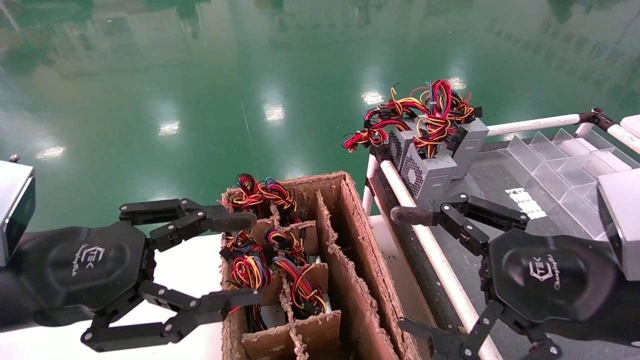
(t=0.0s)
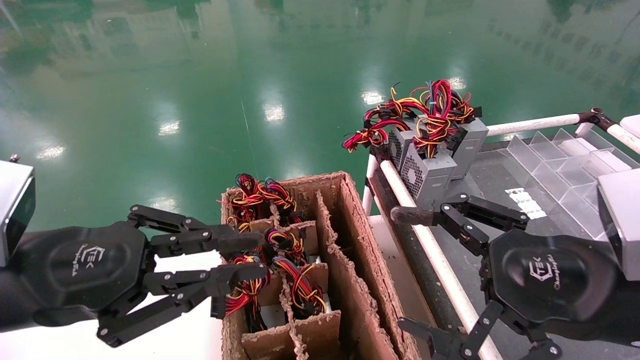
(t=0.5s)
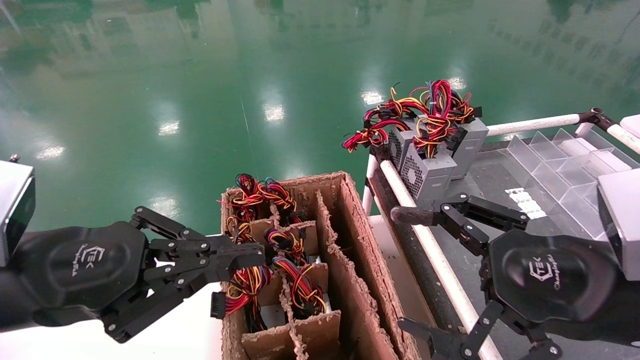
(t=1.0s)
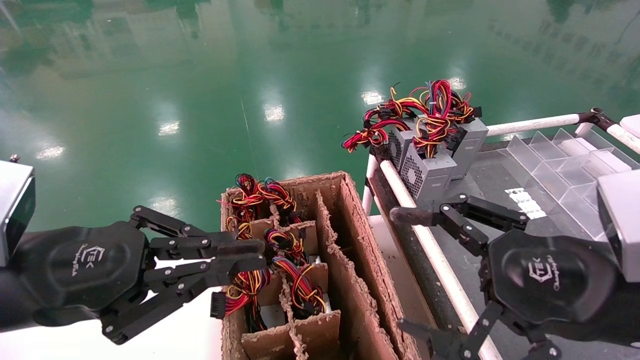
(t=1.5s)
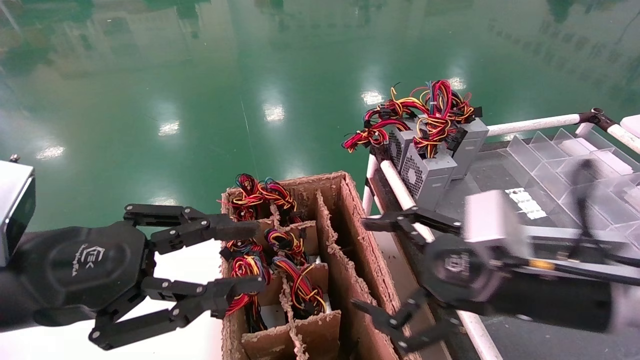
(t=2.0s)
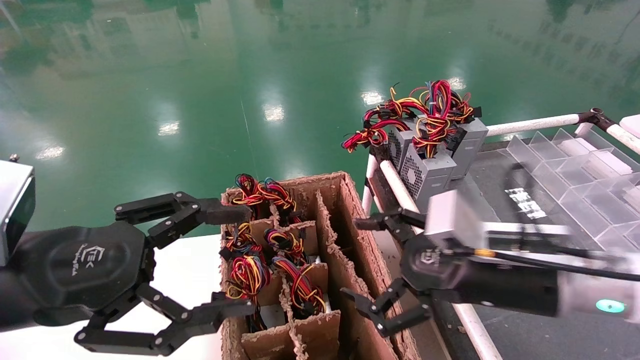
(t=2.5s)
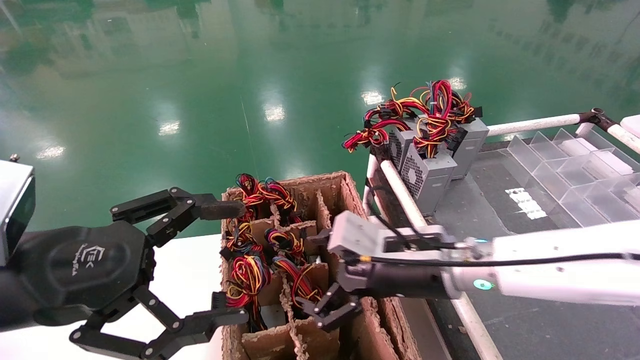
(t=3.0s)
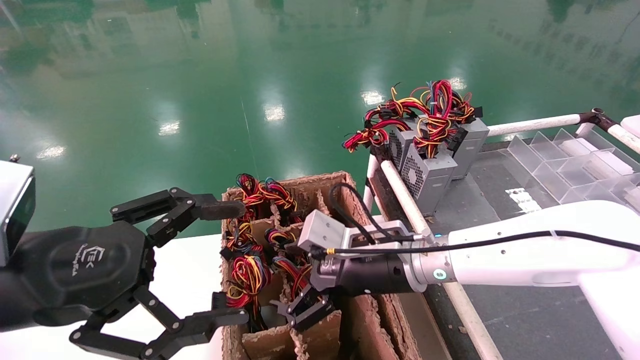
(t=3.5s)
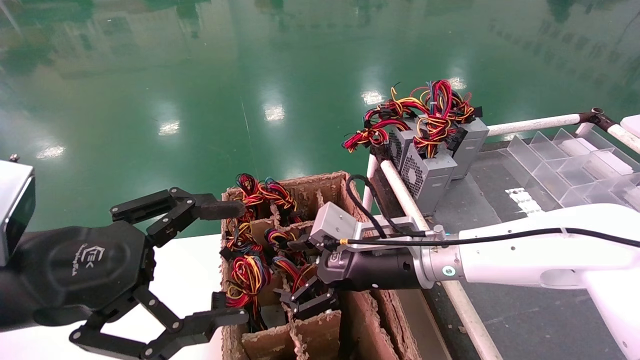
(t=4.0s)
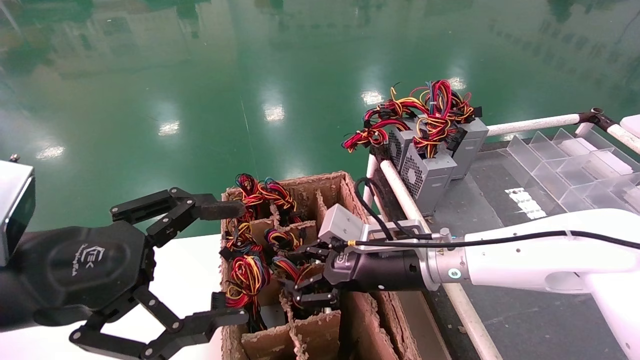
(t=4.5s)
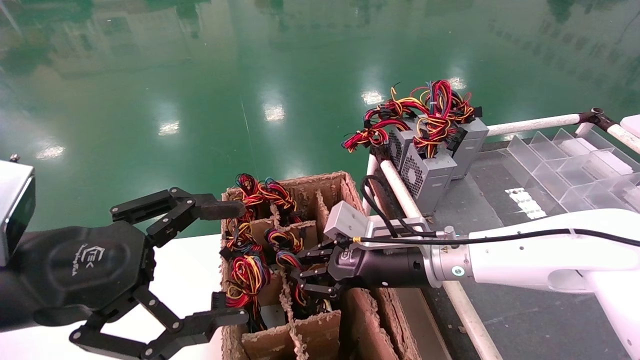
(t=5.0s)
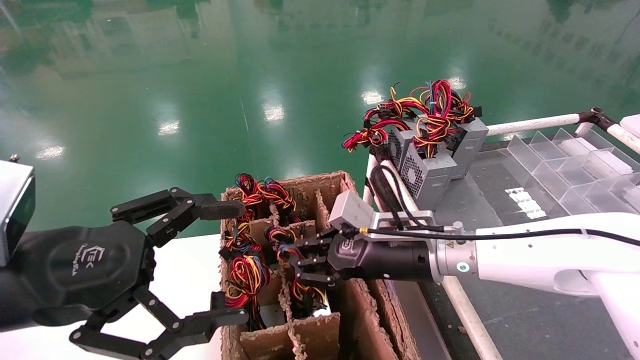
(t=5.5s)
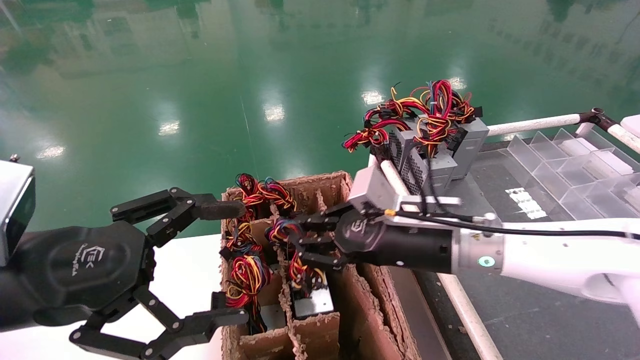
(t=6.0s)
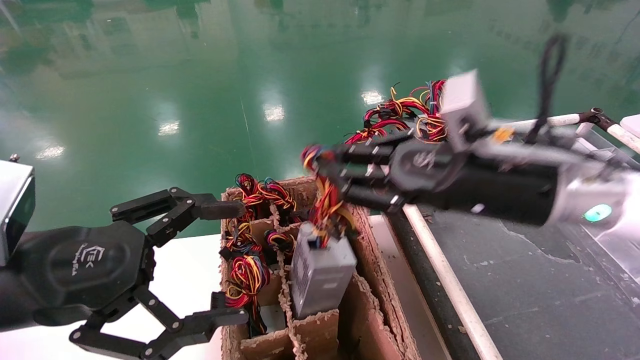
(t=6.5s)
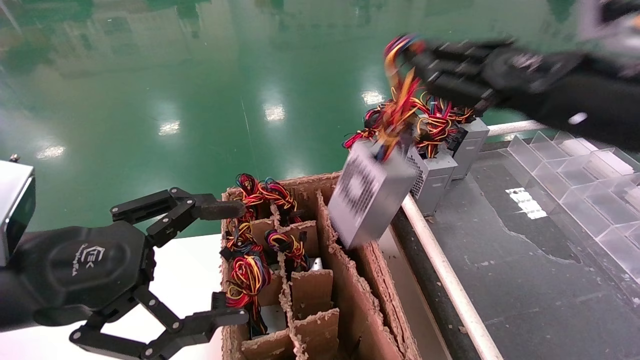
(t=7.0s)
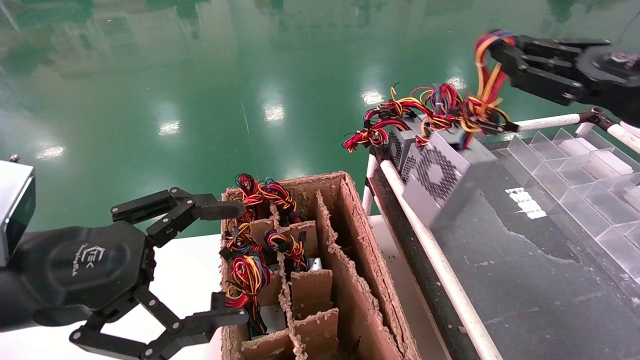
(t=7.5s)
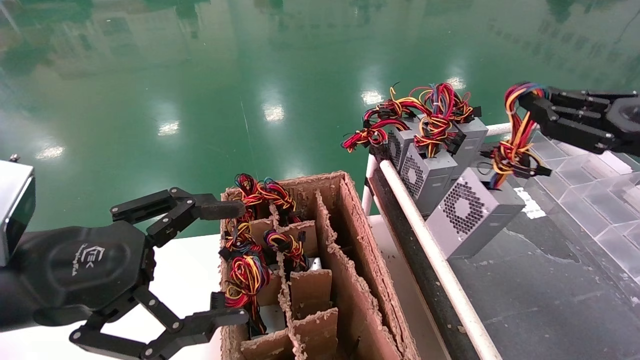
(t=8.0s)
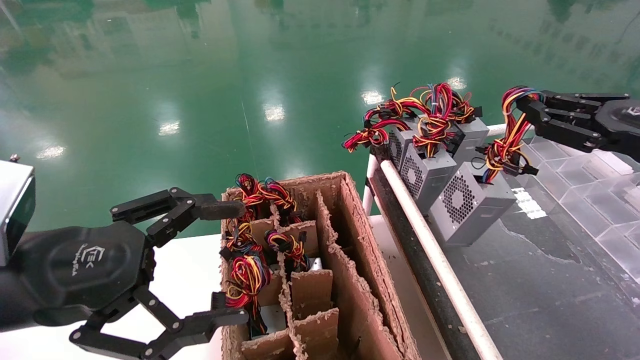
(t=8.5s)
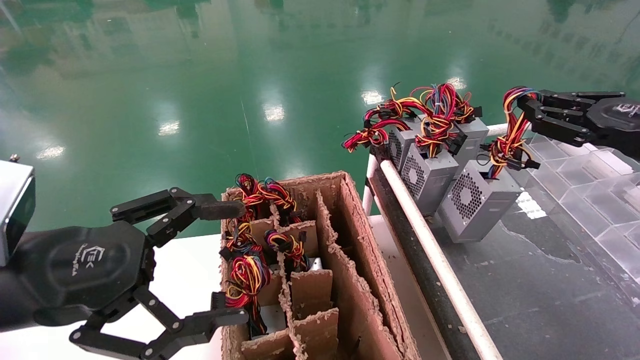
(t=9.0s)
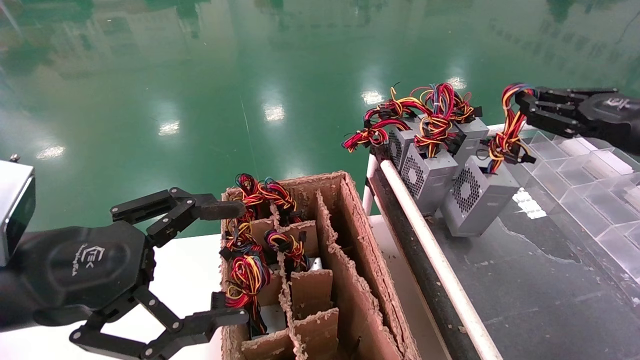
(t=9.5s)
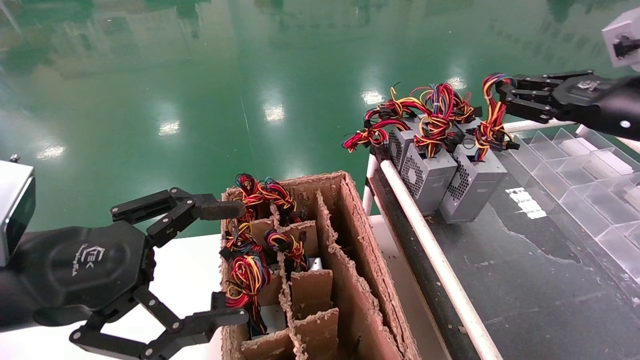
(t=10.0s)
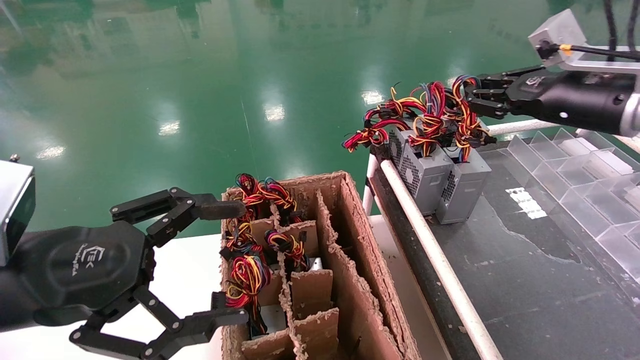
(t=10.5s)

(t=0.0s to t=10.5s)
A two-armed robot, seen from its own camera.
Step, t=1.0s - t=5.0s: Grab and lift the power supply from the large box.
t=0.0s - t=2.0s: The right gripper goes roughly 5 cm forward.
t=2.0s - t=4.0s: The left gripper opens its fingers. The right gripper heads to the left, forward and downward, covering about 20 cm.
t=4.0s - t=6.5s: The right gripper goes approximately 15 cm upward, to the right and backward, and closes.
t=6.5s - t=8.5s: The right gripper moves to the right, some 20 cm.
t=8.5s - t=10.5s: The right gripper is displaced forward, to the left and upward by about 10 cm.

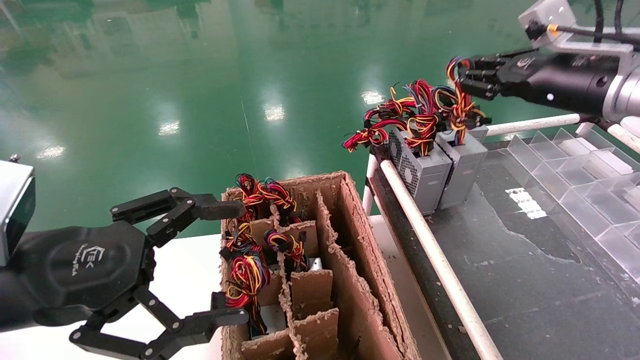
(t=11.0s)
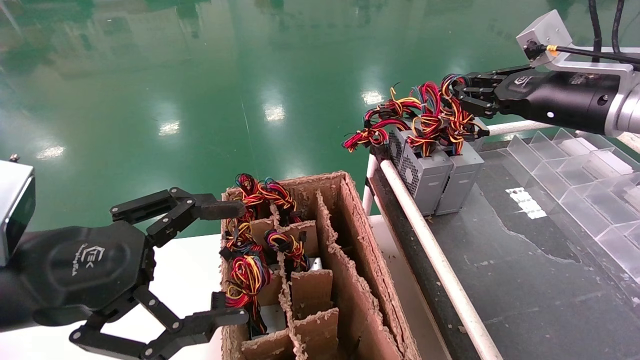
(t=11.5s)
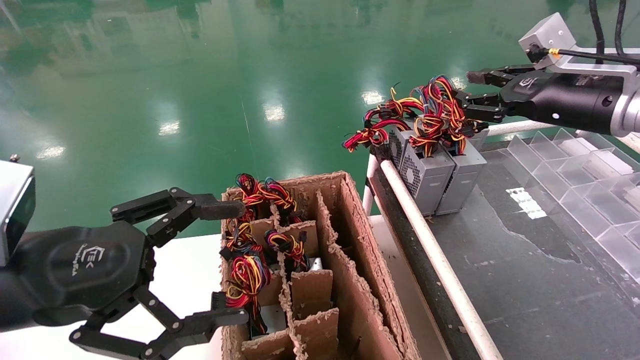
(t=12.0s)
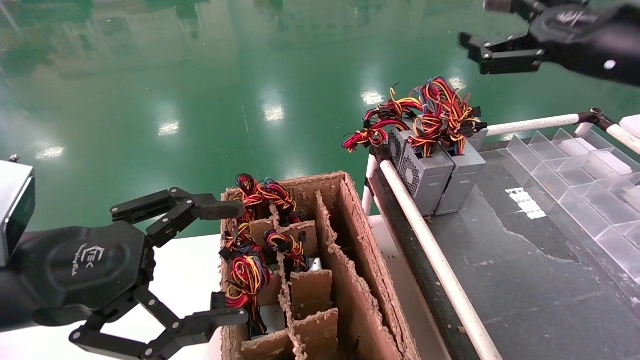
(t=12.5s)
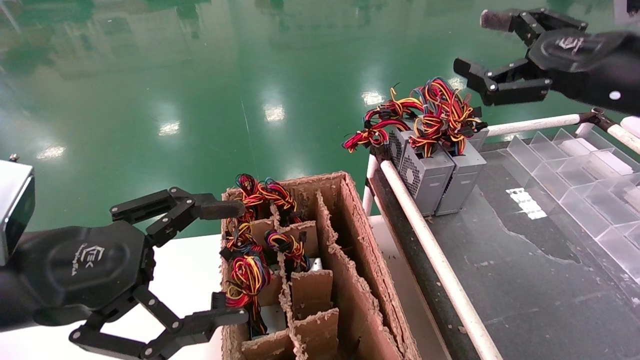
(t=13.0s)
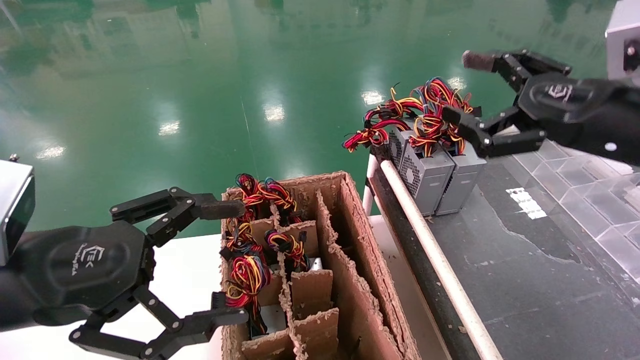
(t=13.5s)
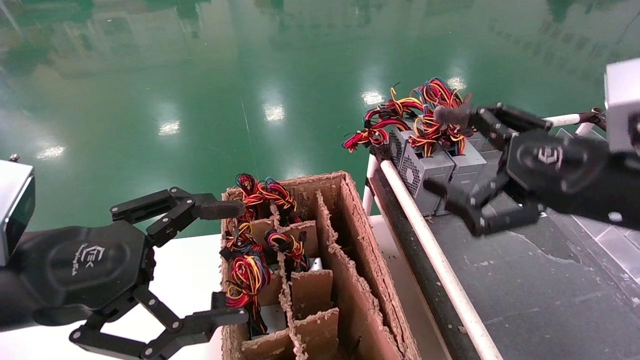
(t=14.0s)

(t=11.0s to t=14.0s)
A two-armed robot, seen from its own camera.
t=11.0s - t=12.5s: The right gripper heads backward, covering about 5 cm, and opens its fingers.
t=12.5s - t=14.0s: The right gripper goes approximately 15 cm downward and backward.

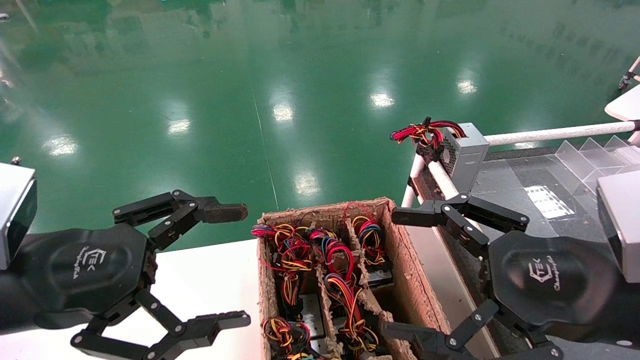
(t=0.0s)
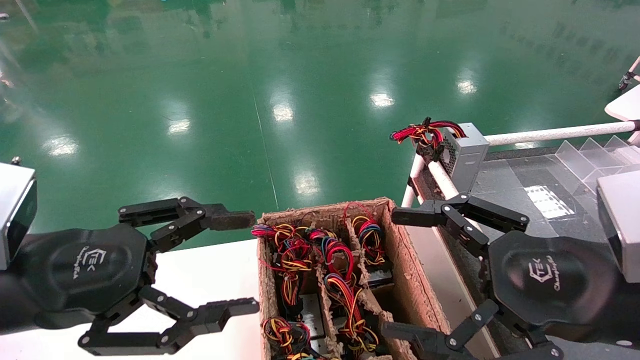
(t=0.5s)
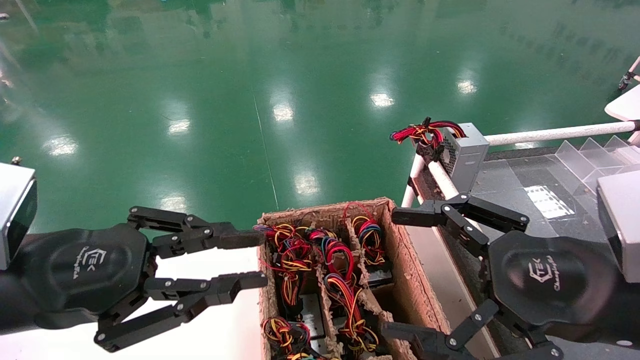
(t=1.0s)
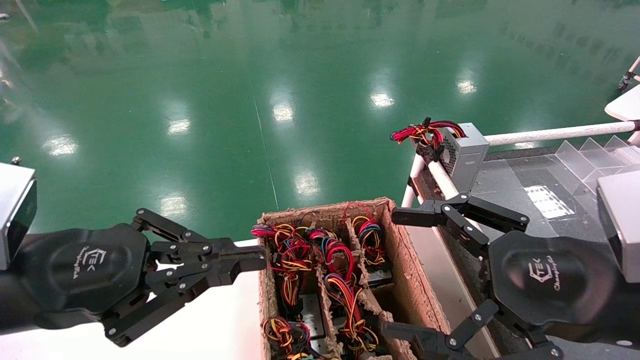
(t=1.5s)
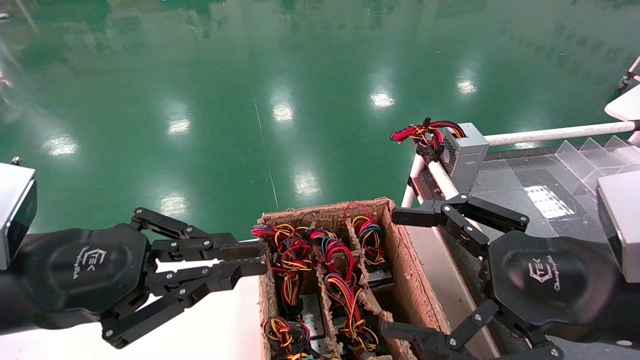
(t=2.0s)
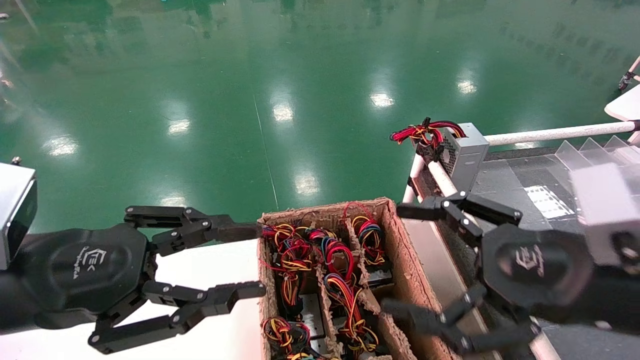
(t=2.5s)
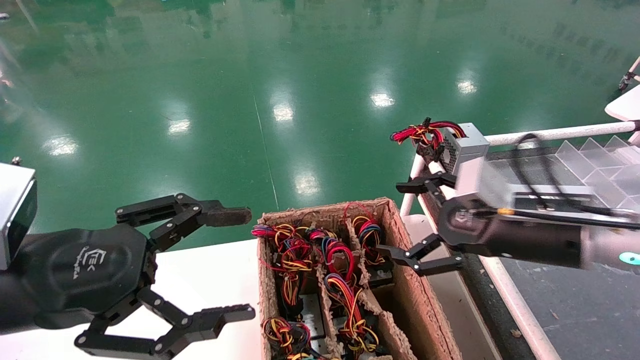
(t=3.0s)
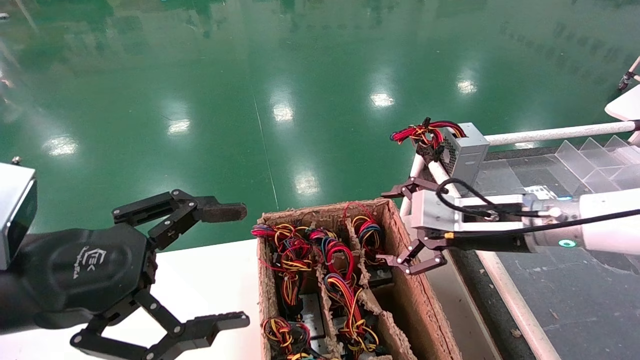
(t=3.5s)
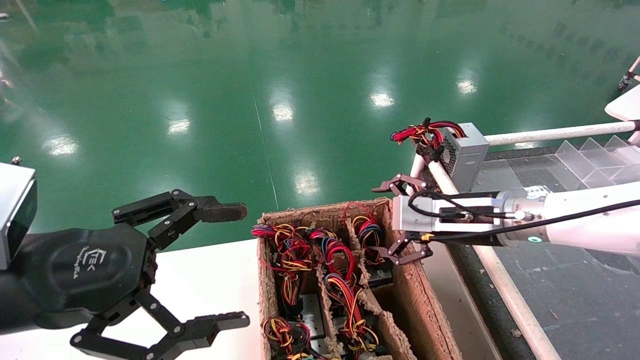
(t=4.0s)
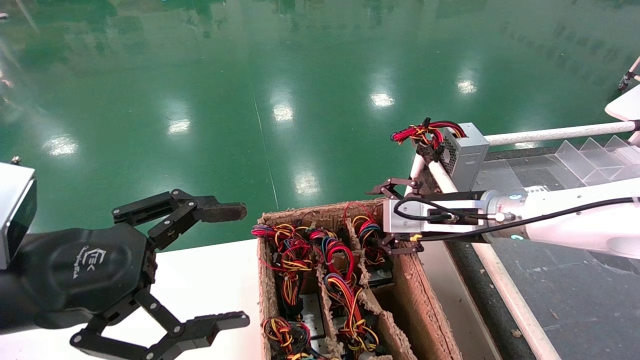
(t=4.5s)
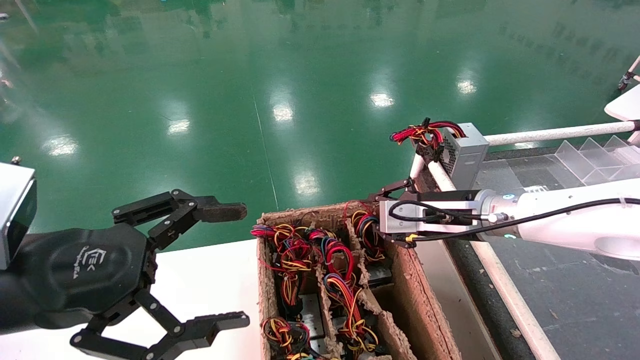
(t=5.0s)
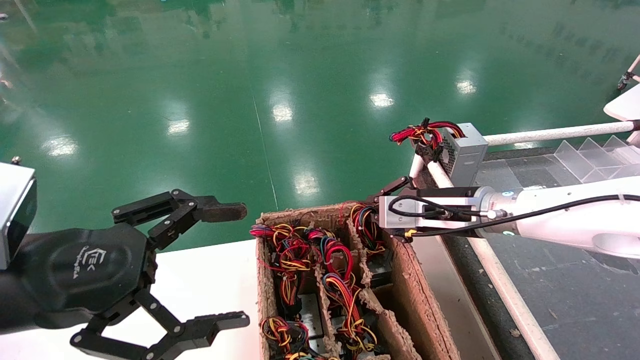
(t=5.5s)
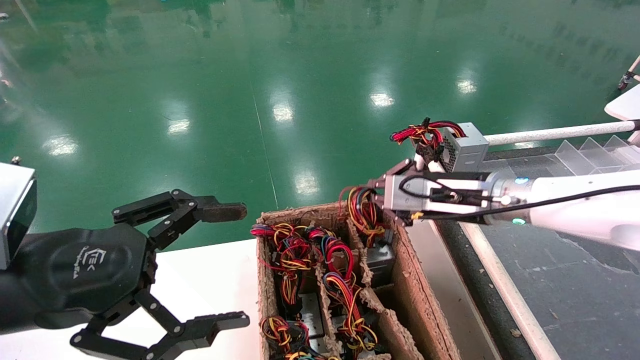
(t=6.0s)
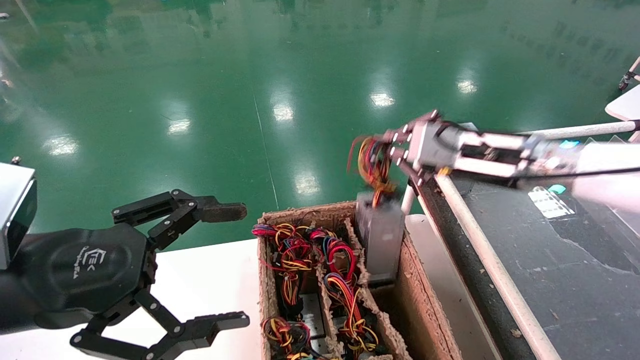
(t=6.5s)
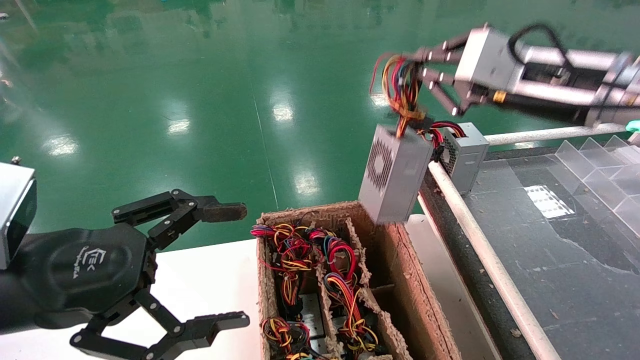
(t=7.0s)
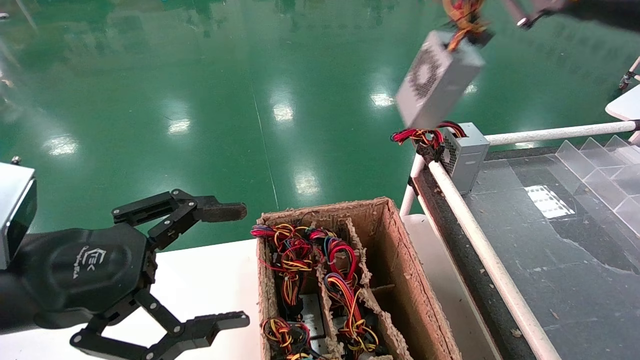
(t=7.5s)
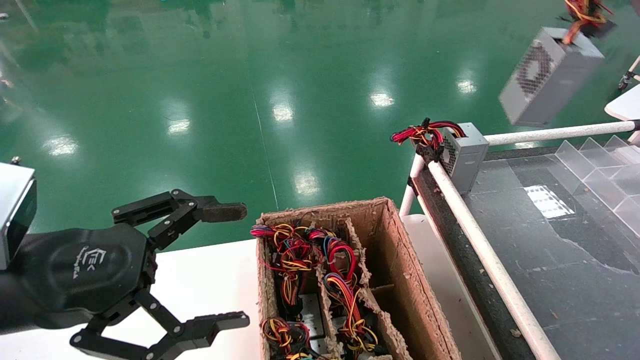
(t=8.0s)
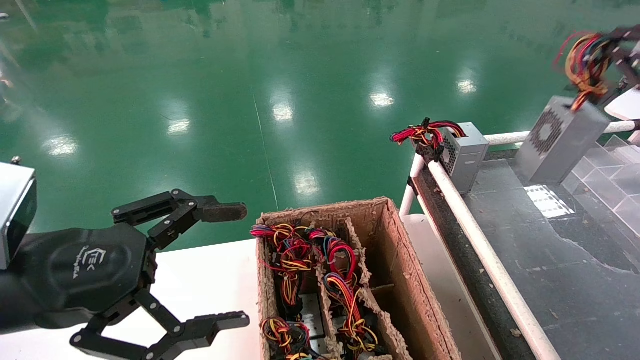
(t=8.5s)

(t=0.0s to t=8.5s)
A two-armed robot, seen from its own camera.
Step, t=2.0s - t=6.0s: Grab and lift the power supply from the large box.
t=0.0s - t=2.0s: The left gripper closes.
t=2.0s - t=4.0s: The right gripper is displaced forward by some 20 cm. The left gripper opens.
t=4.0s - t=6.5s: The right gripper is displaced upward by about 10 cm, and closes.
t=6.5s - t=8.5s: The right gripper heads to the right and upward, covering roughly 25 cm.
